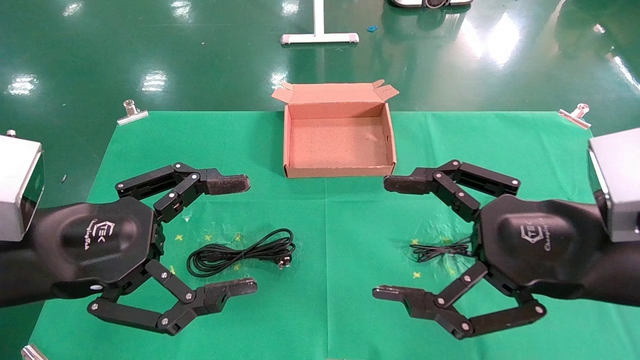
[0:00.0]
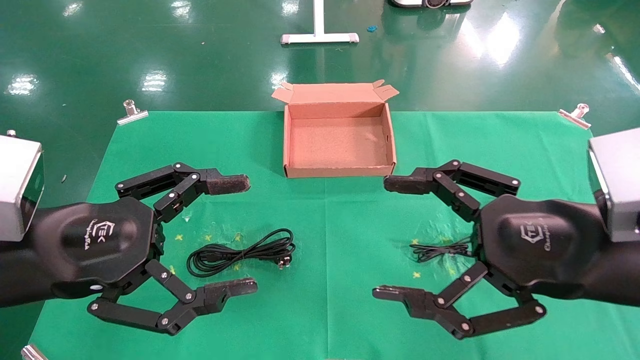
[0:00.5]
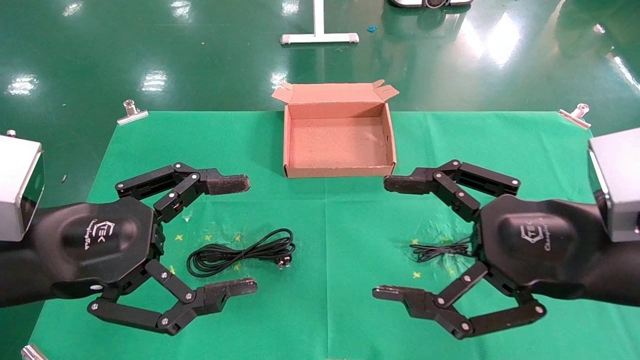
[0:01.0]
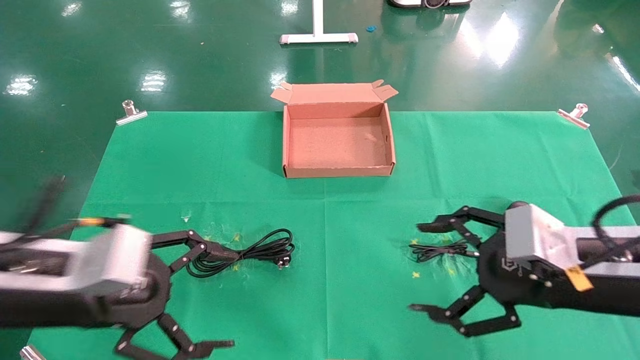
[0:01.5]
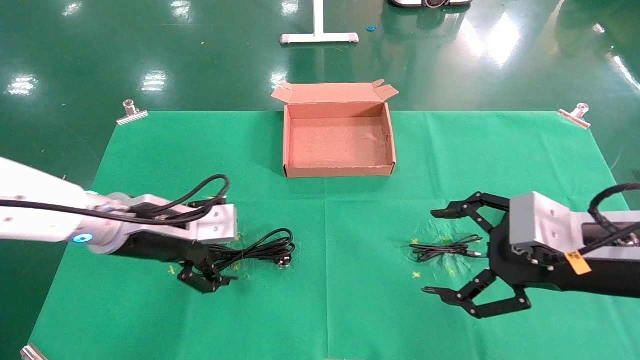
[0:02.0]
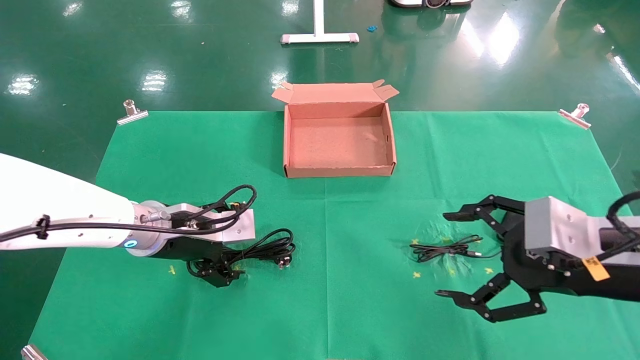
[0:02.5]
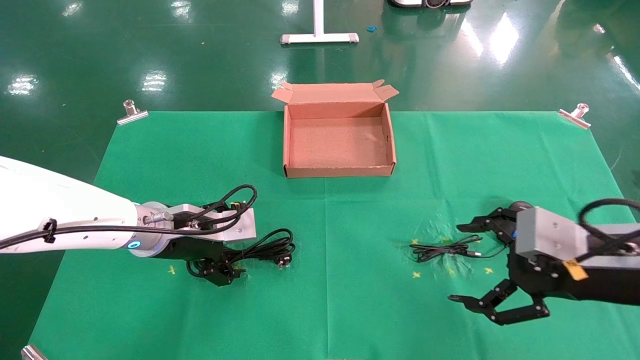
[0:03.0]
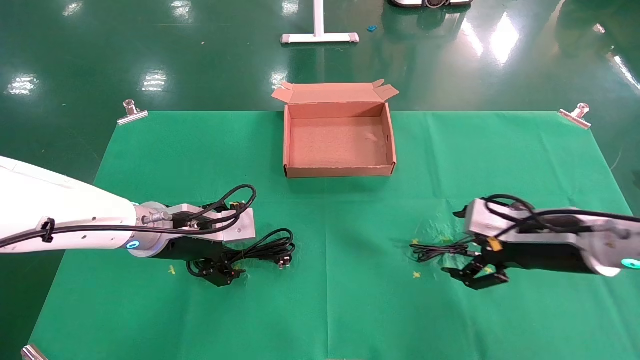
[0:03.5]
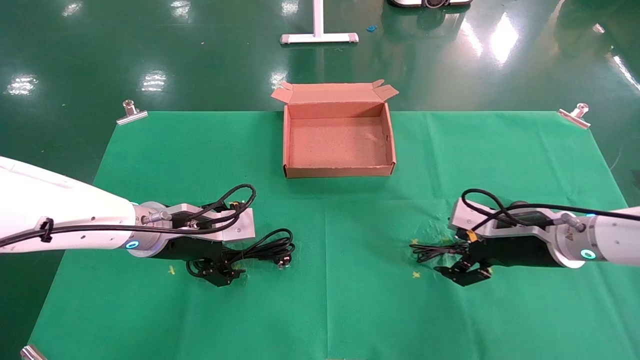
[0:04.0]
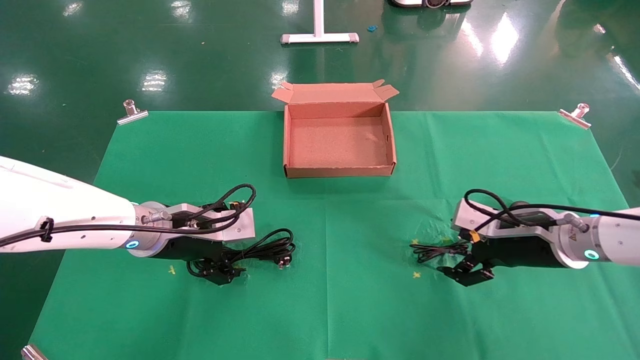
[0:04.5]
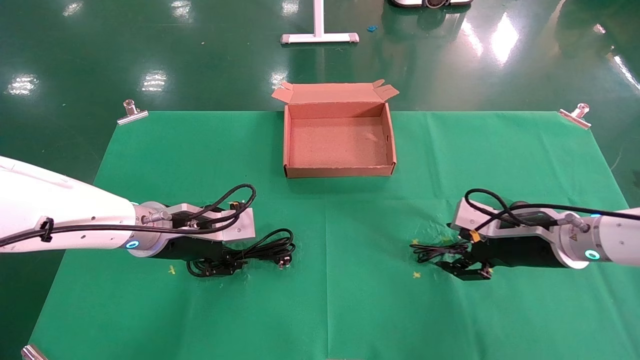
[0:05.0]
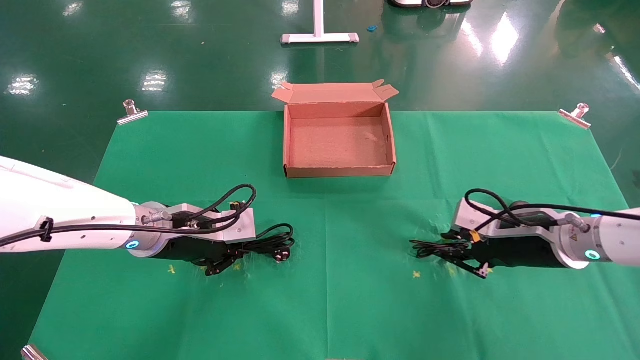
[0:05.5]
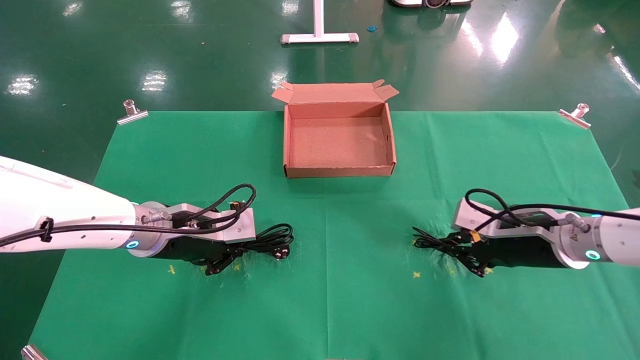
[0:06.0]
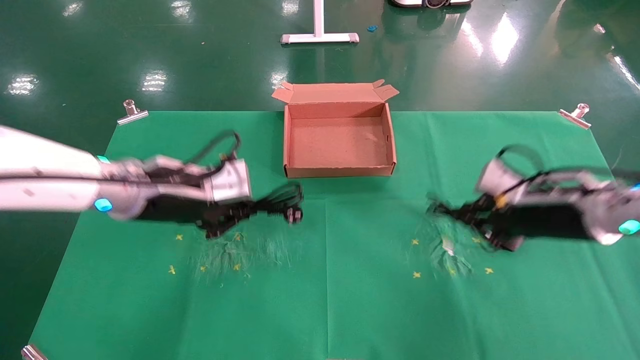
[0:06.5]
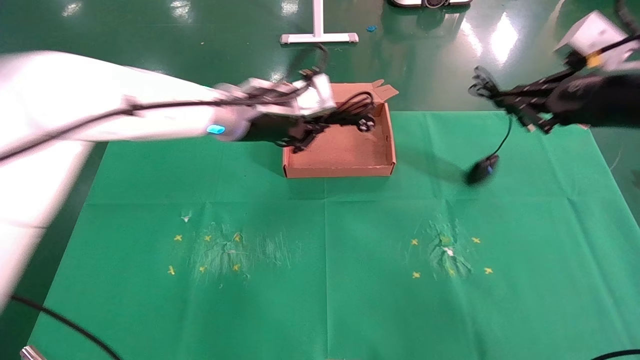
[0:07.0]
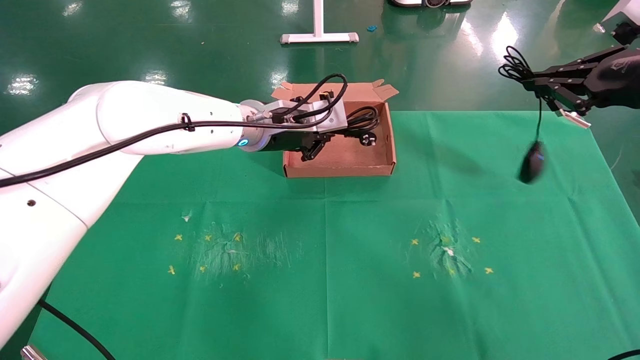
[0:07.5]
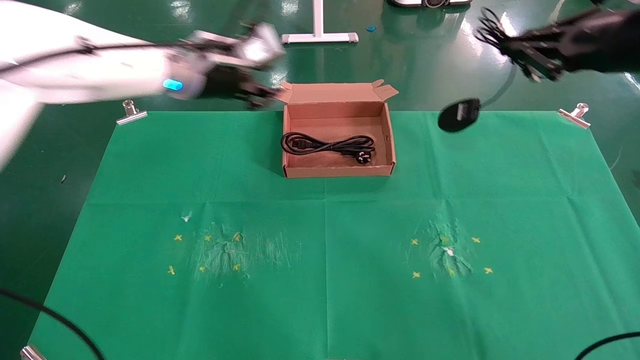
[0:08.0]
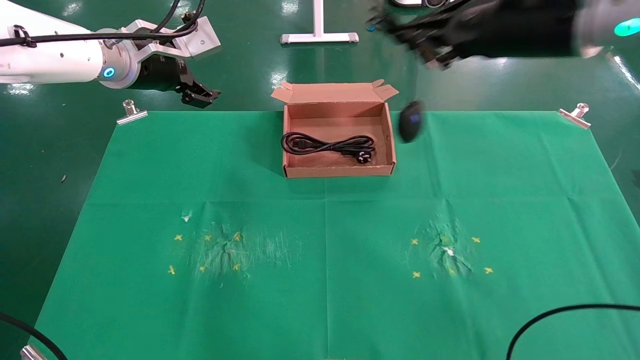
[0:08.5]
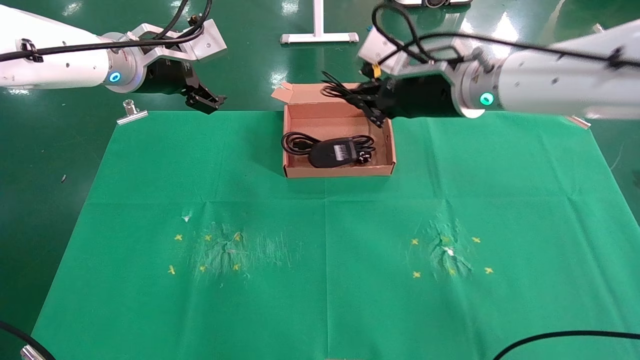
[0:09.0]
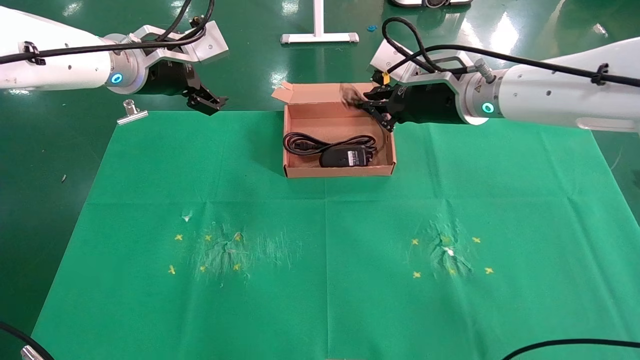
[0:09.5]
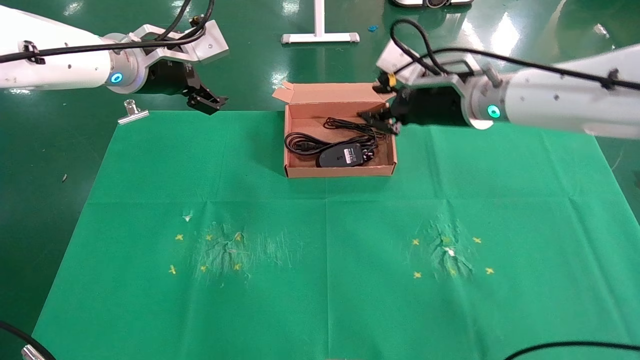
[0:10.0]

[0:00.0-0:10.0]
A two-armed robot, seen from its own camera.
Task of the whole recording: grasp data cable left put into box grasp mouse right put into box.
Step, 0:01.5 to 0:05.5: Simultaneously pick up the mouse and power cord from the accessory packaging area.
Step, 0:06.0 to 0:09.5: Place the mouse and power cord into the box.
0:00.0 to 0:02.0: The right gripper ends up about 5 cm from where it was; the left gripper heads forward, covering approximately 15 cm.
0:02.0 to 0:04.0: The right gripper goes roughly 15 cm forward and downward.
0:04.0 to 0:06.0: The right gripper closes its fingers; the left gripper closes up.
0:06.0 to 0:08.0: The right gripper shifts approximately 25 cm upward. The left gripper travels upward and forward by approximately 20 cm.
0:08.0 to 0:10.0: The left gripper heads to the left, covering some 5 cm, and opens its fingers; the right gripper goes some 20 cm to the left, downward and forward.

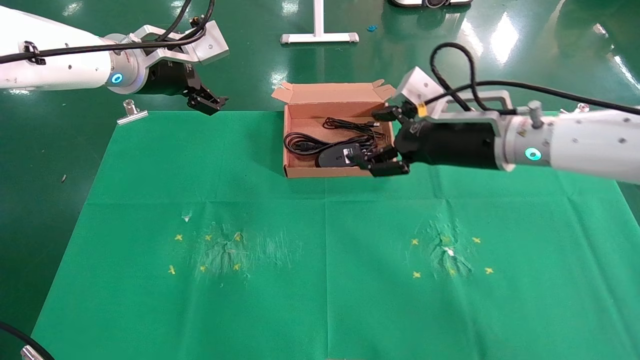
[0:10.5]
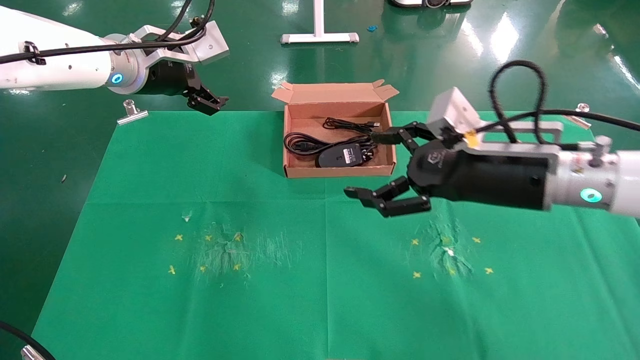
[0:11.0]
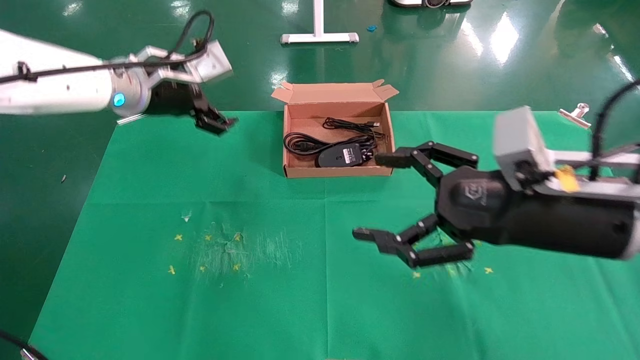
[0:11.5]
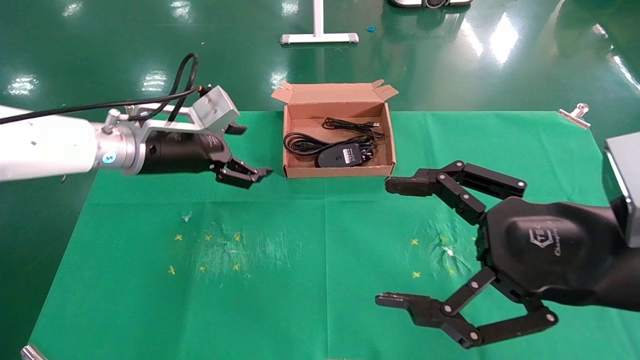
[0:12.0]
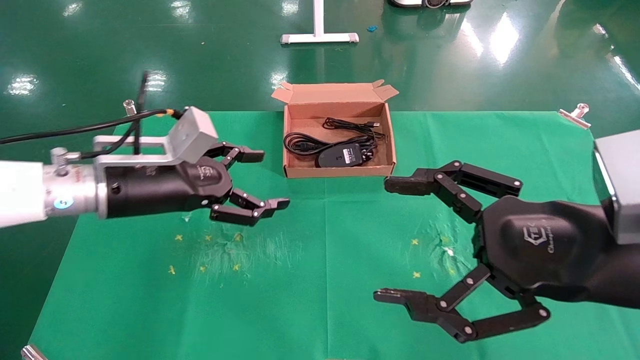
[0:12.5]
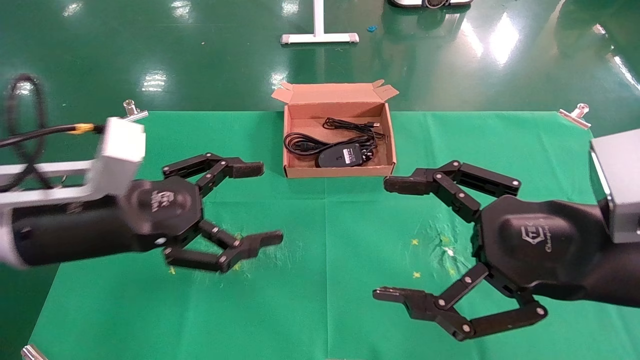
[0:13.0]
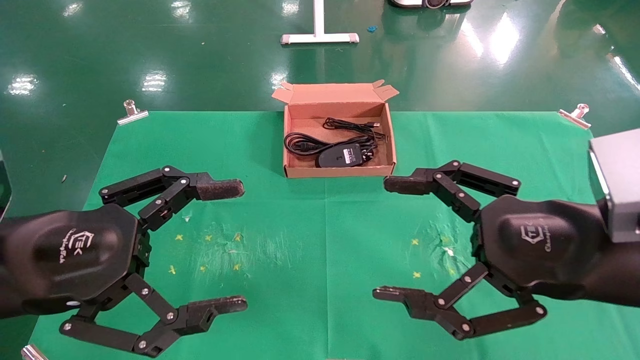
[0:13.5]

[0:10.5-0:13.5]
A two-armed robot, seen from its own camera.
Task of the whole recording: grasp data cable left put into box grasp mouse right put into box.
0:10.5 to 0:12.0: The right gripper moves backward, some 20 cm, while the left gripper shifts about 10 cm downward.
0:12.0 to 0:13.5: The left gripper heads backward, covering some 20 cm.
